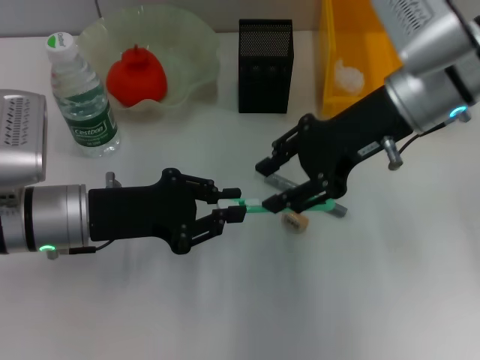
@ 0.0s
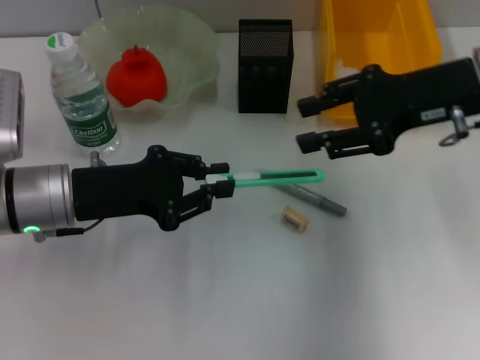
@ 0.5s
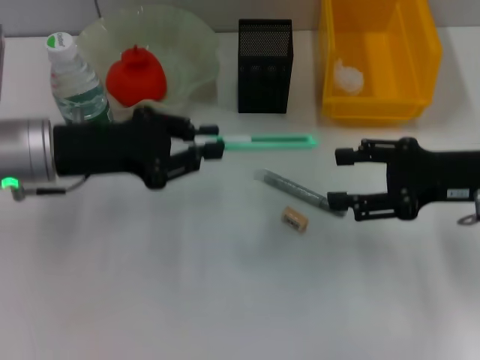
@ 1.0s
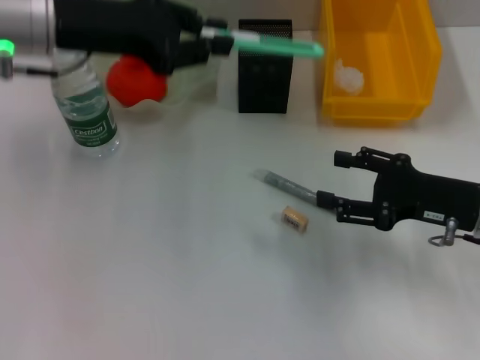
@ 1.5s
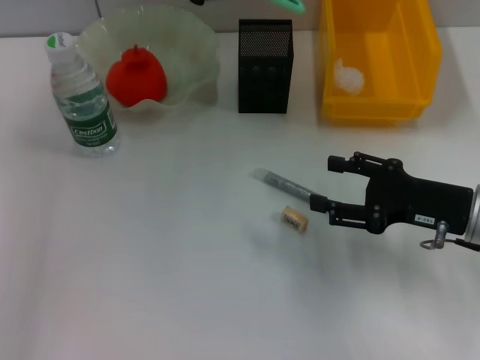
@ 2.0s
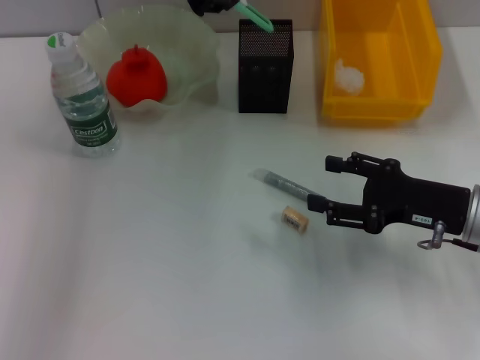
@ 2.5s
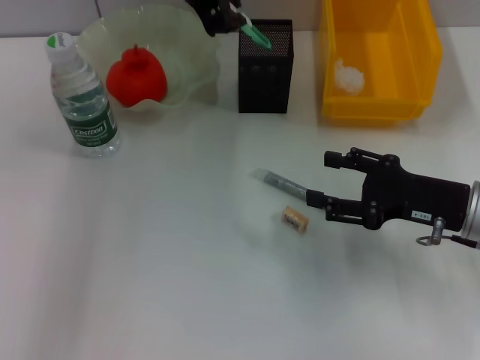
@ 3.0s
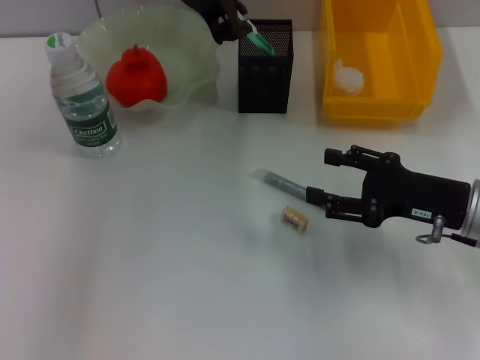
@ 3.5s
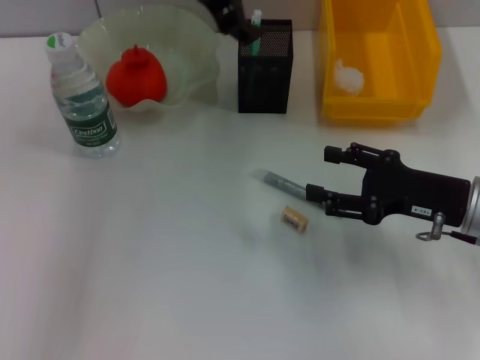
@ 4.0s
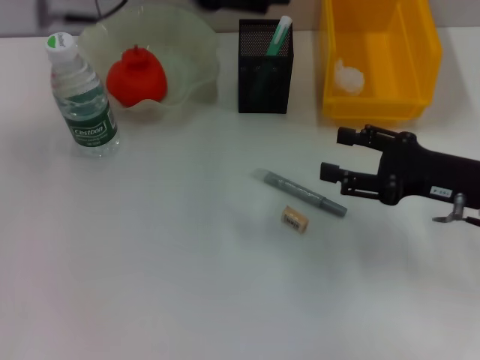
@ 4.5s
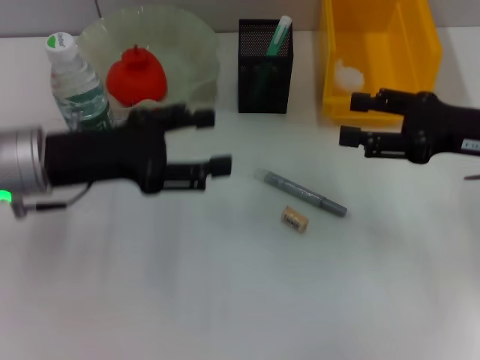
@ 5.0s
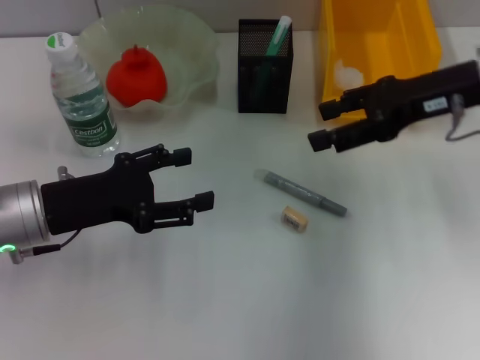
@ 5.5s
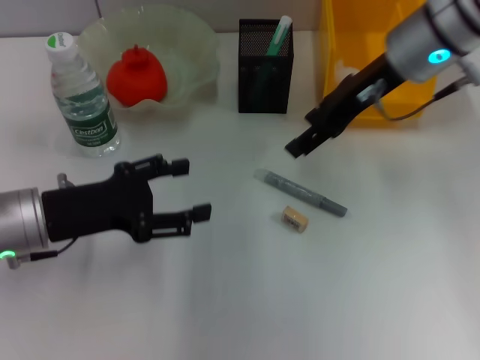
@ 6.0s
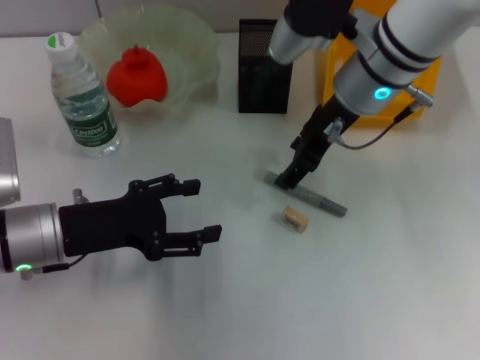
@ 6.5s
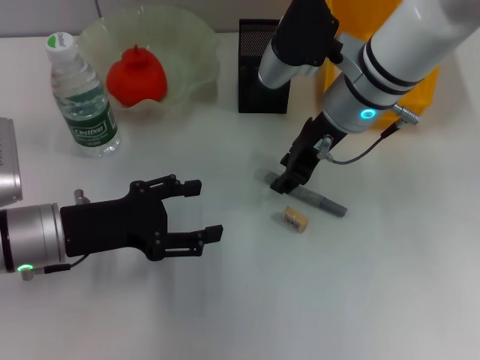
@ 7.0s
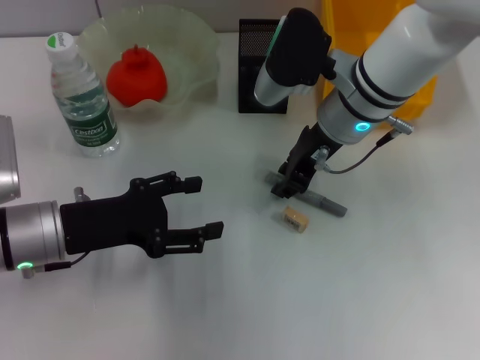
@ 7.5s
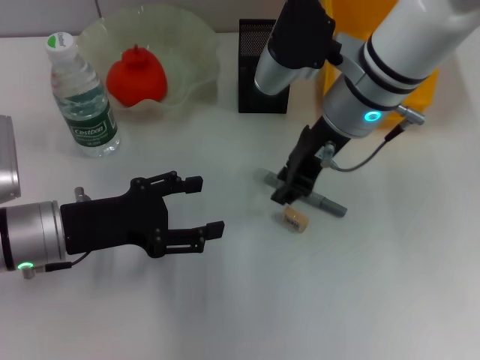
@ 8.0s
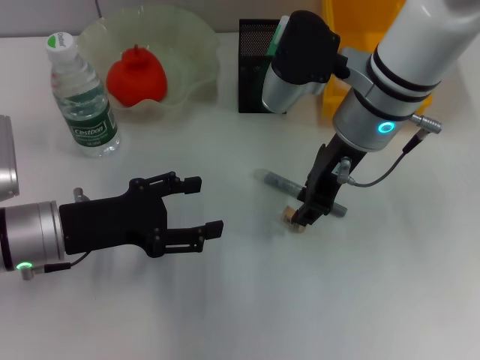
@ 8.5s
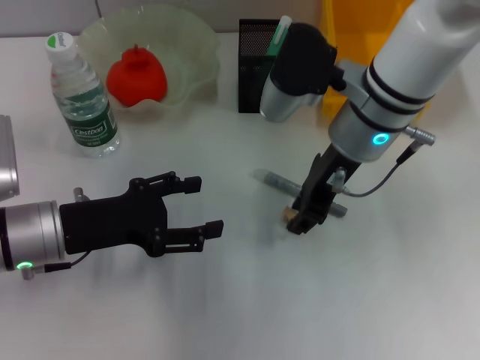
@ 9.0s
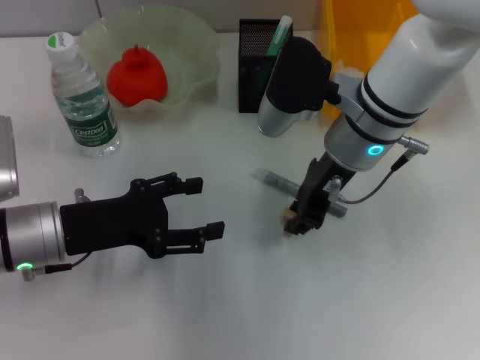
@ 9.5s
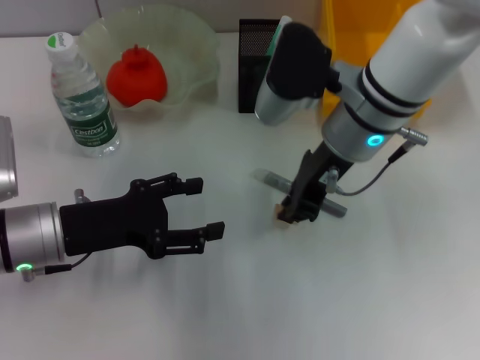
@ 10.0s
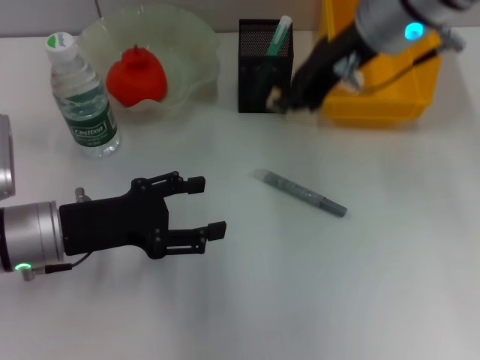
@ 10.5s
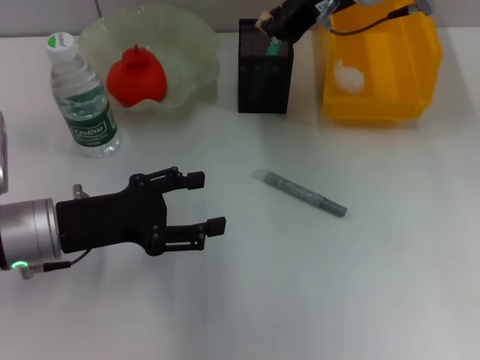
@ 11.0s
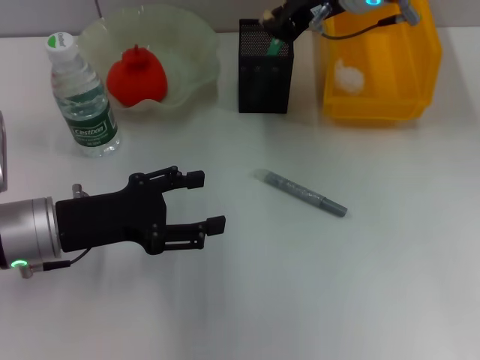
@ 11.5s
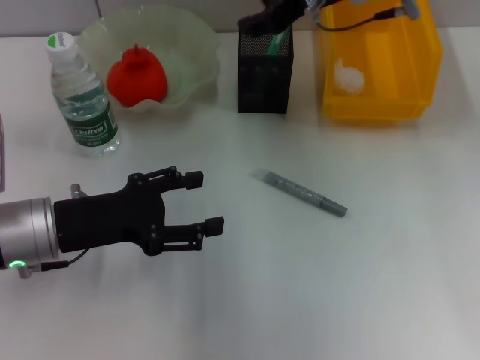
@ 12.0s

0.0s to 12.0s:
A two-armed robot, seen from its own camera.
Step, 0.0s to 3.5s: Place the blue utility knife into the pen holder with the left hand.
Step, 4.0s to 9.5s: Grab the eraser with the right hand.
Step, 10.0s to 11.5s: Put the eraser into the pen holder with the right hand.
0.0s to 2.0s: The left gripper shifts approximately 25 cm upward and forward; the right gripper goes some 20 cm downward, to the right and backward, and opens up.
2.0s to 4.0s: The left gripper shifts about 5 cm to the right, and opens.
4.0s to 6.0s: The right gripper heads upward, forward and to the left, covering approximately 20 cm; the left gripper goes about 30 cm downward, backward and to the left.
6.0s to 8.0s: The right gripper heads to the left, covering approximately 5 cm, and closes.
8.0s to 10.0s: The grippers make only small movements.
10.0s to 12.0s: The right gripper goes about 10 cm upward and forward, and opens up.

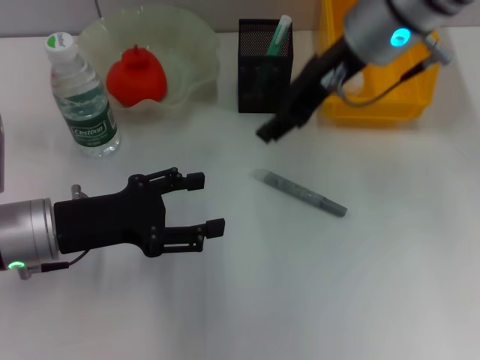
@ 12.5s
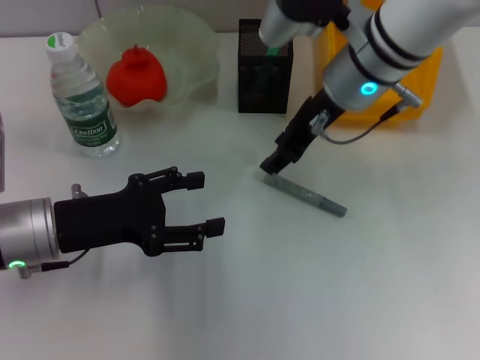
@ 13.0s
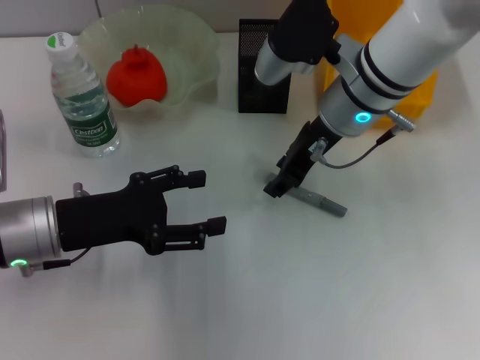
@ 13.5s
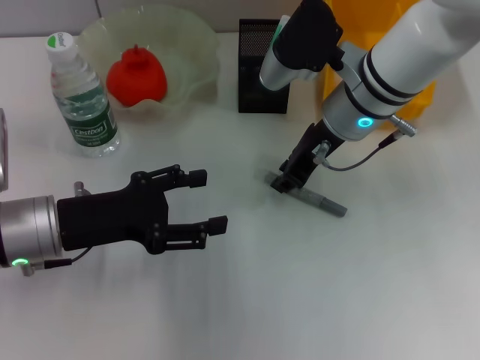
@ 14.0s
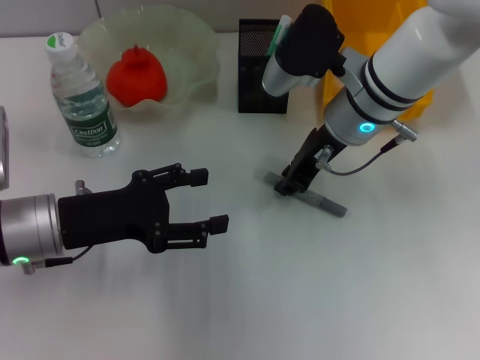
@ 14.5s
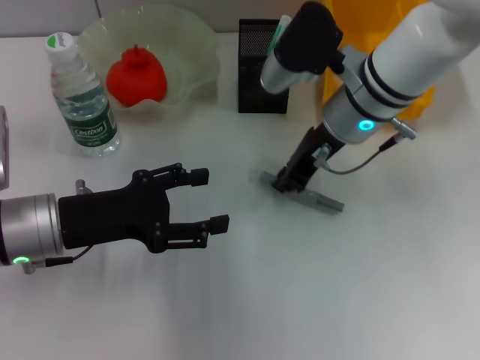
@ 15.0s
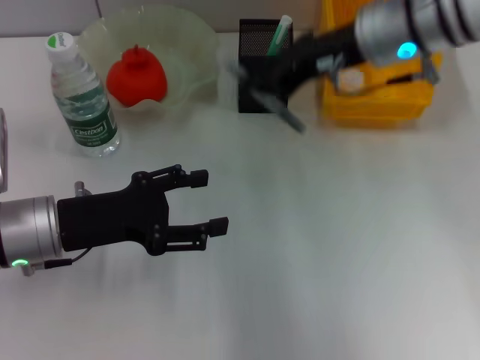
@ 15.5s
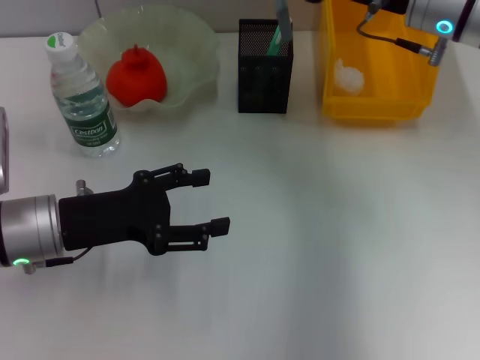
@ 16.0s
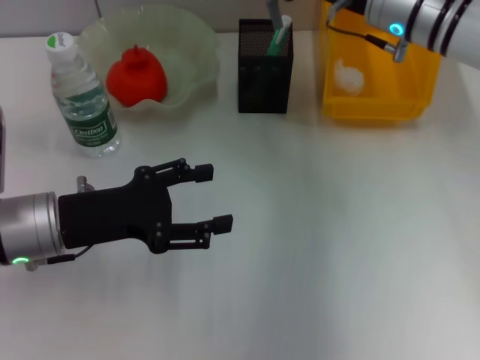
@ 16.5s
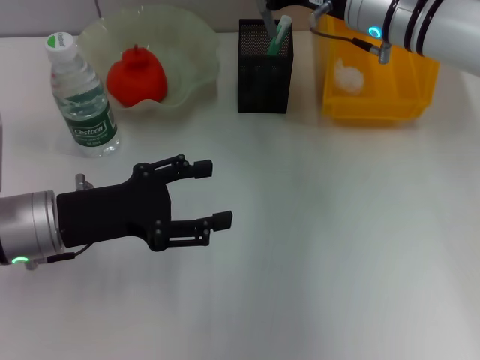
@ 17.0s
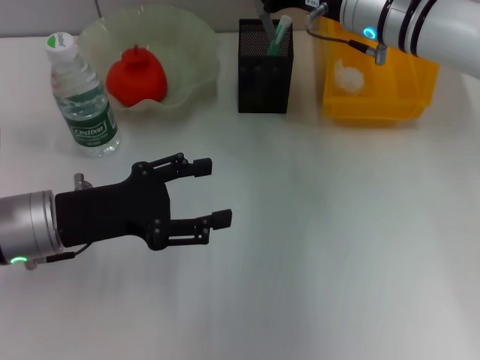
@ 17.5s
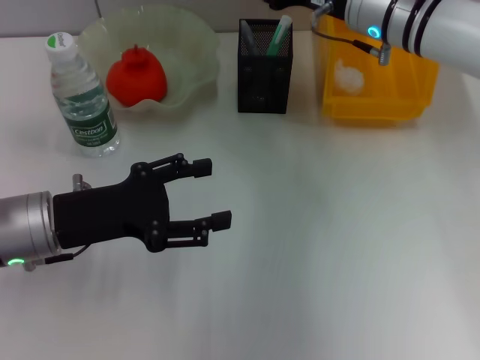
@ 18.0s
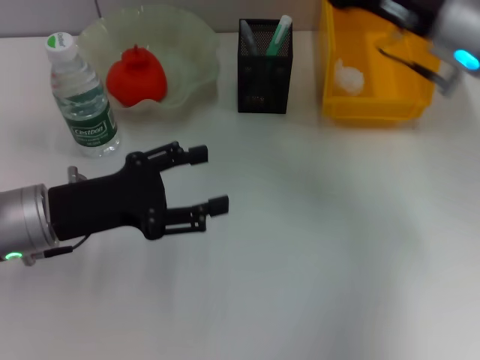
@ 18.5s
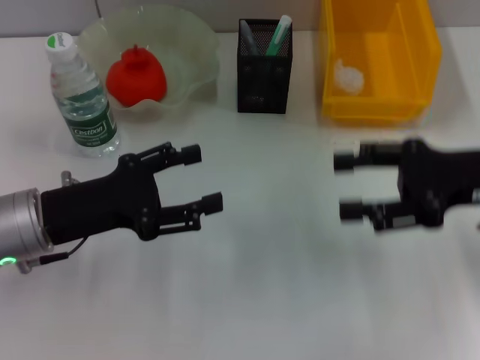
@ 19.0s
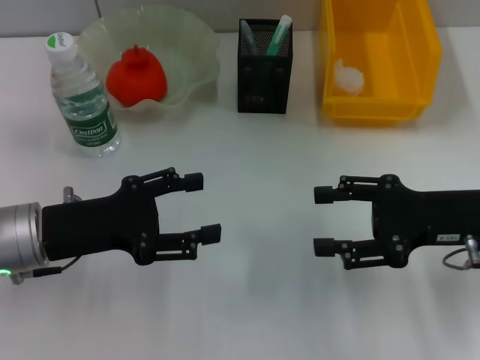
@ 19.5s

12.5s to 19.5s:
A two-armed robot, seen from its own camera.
Step, 12.5s to 14.5s: Grab the gray glue with the right hand.
Step, 15.0s to 17.5s: Place the gray glue into the pen holder with the right hand.
12.5s to 14.5s: The right gripper travels downward by some 10 cm, and closes its fingers.
14.5s to 16.0s: The right gripper is displaced to the right and upward by approximately 10 cm.
16.0s to 17.5s: The right gripper shifts by some 5 cm.
17.5s to 19.5s: The right gripper travels backward and to the right by about 20 cm, and opens.
